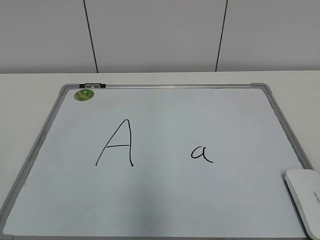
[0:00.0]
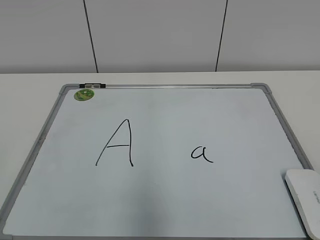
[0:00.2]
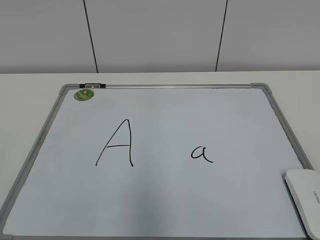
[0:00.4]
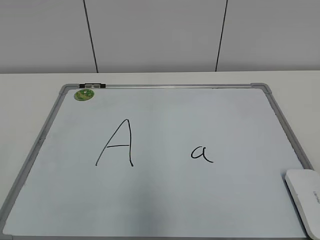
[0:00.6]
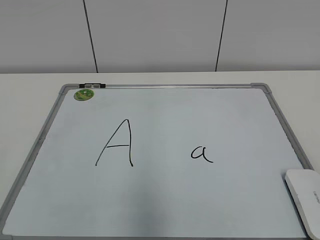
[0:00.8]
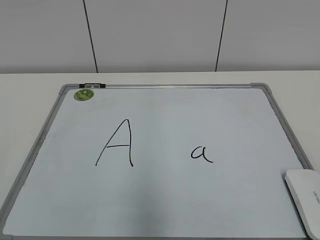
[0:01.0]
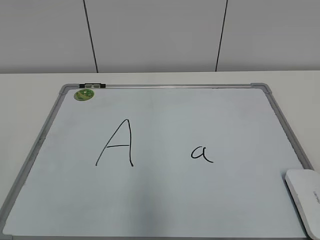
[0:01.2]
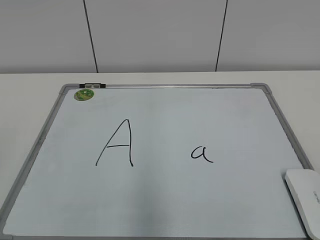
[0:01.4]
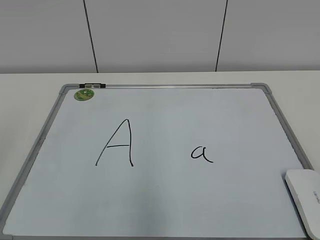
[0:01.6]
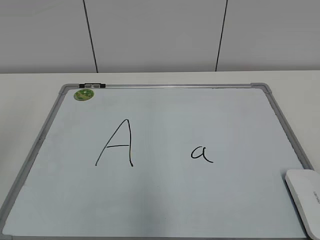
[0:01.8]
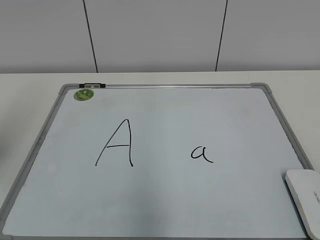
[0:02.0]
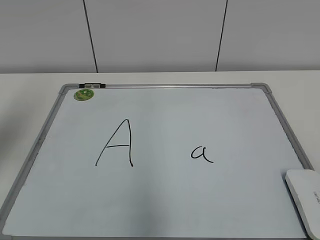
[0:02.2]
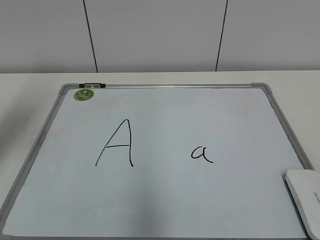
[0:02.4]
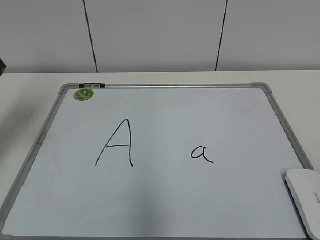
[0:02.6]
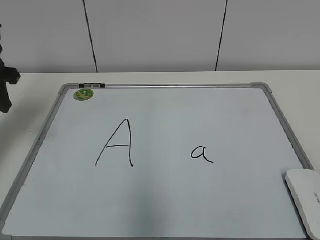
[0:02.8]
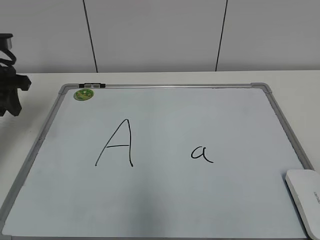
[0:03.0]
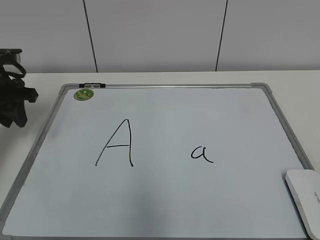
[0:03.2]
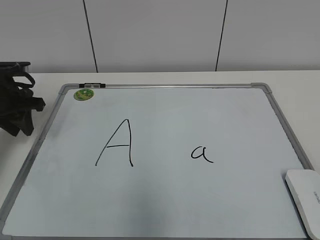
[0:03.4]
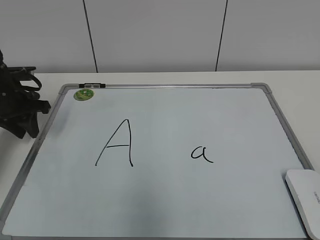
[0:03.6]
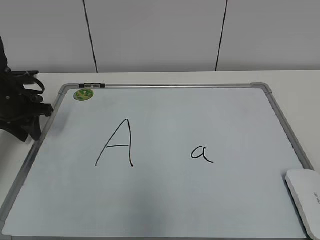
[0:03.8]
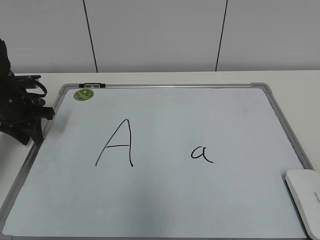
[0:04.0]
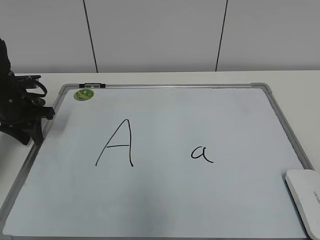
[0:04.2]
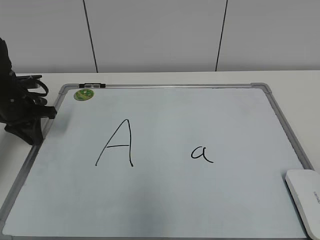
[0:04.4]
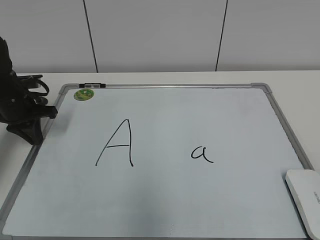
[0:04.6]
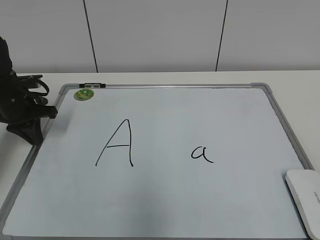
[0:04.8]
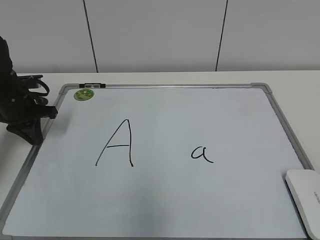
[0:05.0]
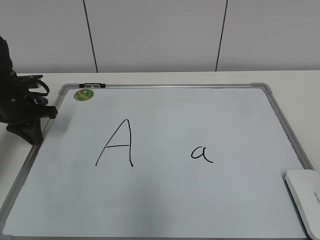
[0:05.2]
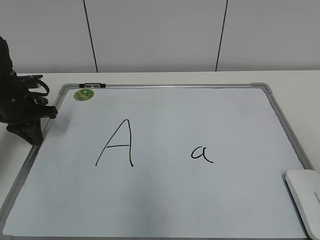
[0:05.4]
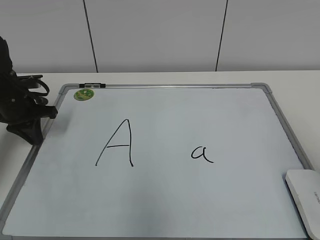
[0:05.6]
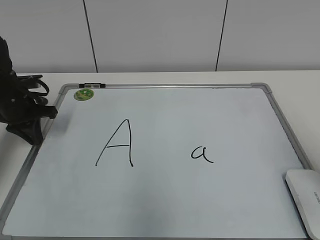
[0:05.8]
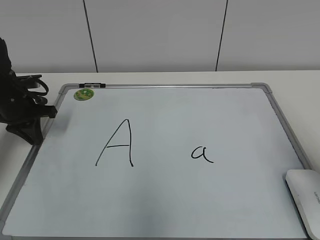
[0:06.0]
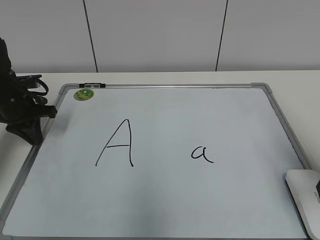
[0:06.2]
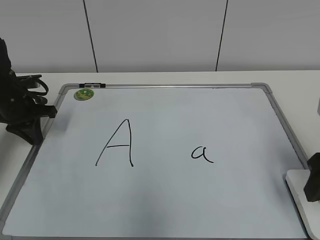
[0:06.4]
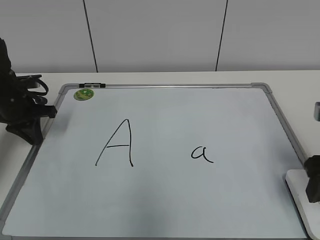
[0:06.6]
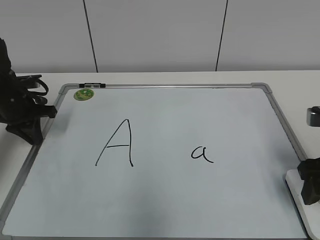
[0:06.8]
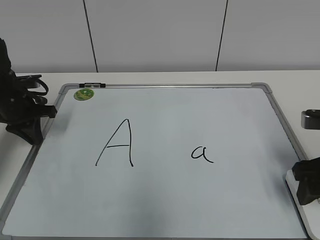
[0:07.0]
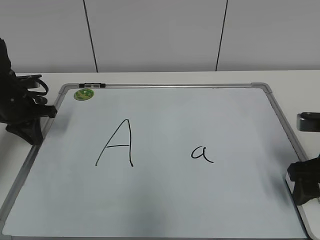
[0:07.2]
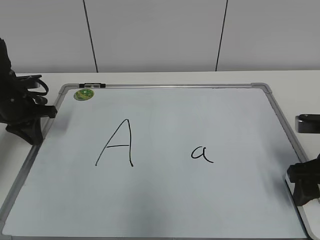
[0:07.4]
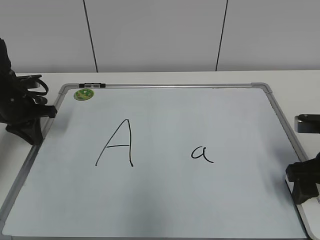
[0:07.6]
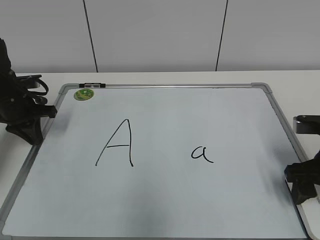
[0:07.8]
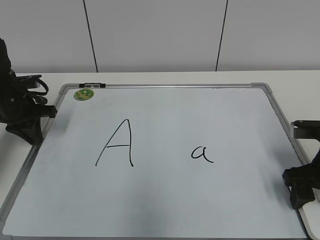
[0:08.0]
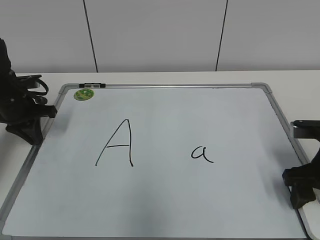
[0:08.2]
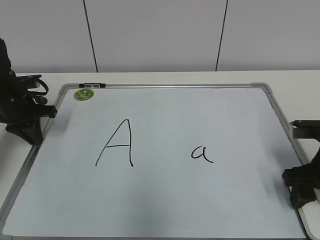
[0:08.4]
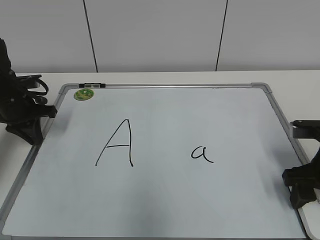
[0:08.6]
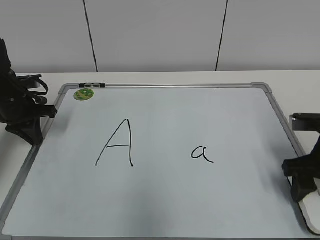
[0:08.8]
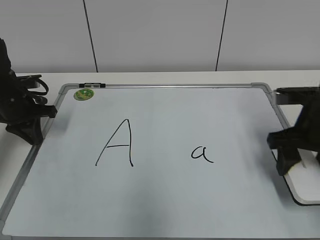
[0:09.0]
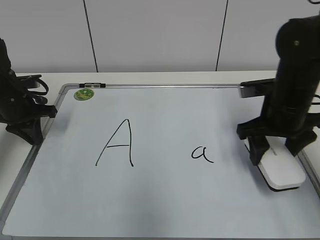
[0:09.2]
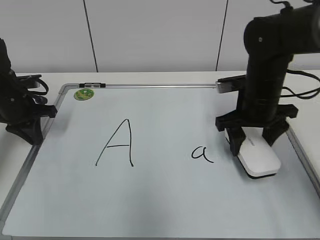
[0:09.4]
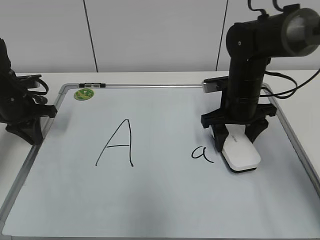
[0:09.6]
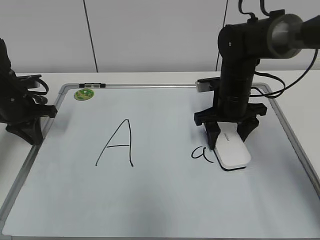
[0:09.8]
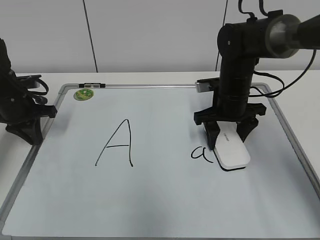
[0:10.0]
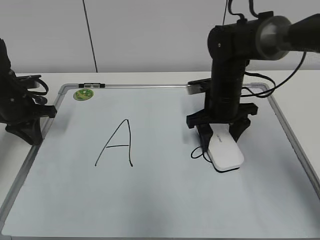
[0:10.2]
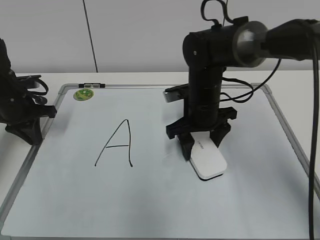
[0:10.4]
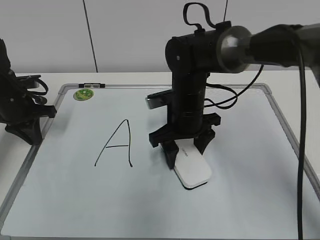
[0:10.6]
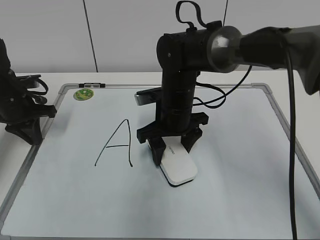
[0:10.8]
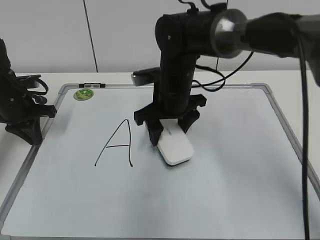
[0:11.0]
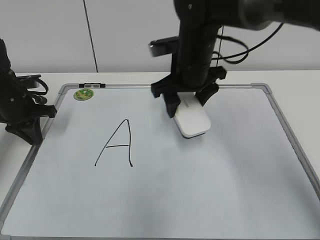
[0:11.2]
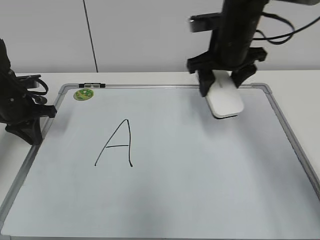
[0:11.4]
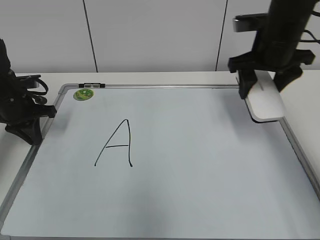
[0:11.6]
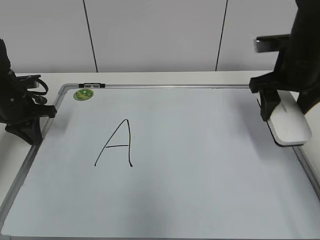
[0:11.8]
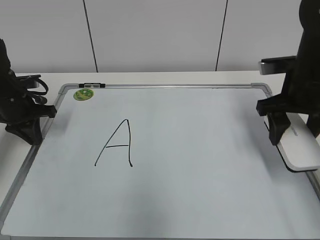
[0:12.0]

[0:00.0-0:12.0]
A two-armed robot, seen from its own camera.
Task of the whole recording: pick up the eraser on the blackboard and erase the letter "a".
Step, 0.0 to 5.2 s: Hold the drawing board steady with your left hand.
Step, 8.0 to 11.0 s: Erase the letter a with your right hand.
1.6 to 3.0 s: The left gripper shifts about 30 cm forward.
3.0 to 4.4 s: The left gripper moves downward, about 10 cm.
4.4 to 6.0 s: The right gripper goes roughly 20 cm forward.
6.0 to 7.6 s: The right gripper shifts about 10 cm downward and forward.
7.6 to 9.0 s: The right gripper moves about 5 cm.
9.0 to 10.4 s: The right gripper travels to the left and forward by some 20 cm.
10.4 to 12.0 s: The right gripper is displaced to the right and upward by approximately 15 cm.

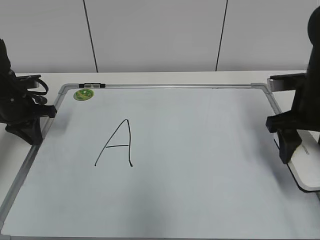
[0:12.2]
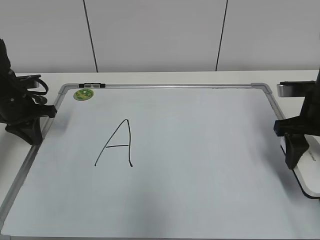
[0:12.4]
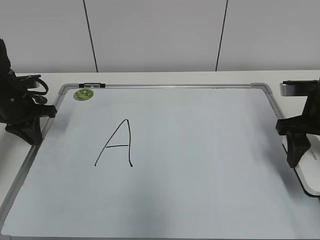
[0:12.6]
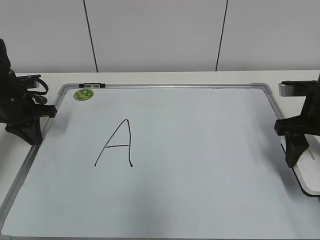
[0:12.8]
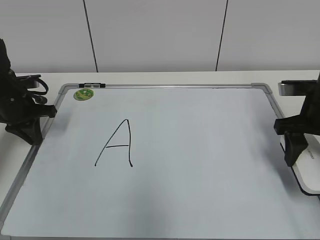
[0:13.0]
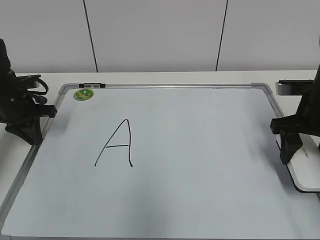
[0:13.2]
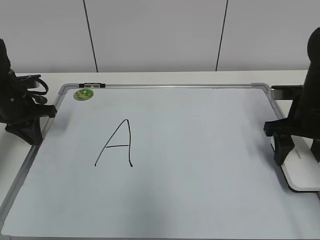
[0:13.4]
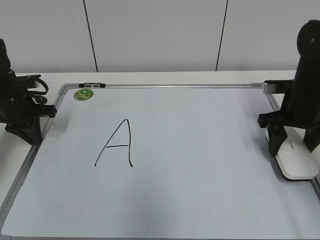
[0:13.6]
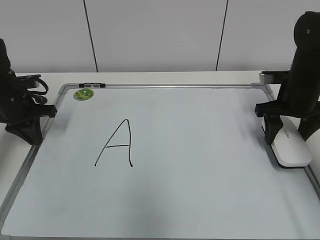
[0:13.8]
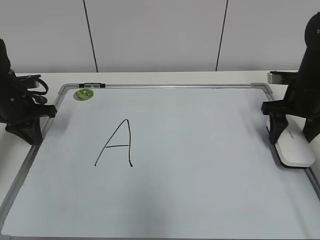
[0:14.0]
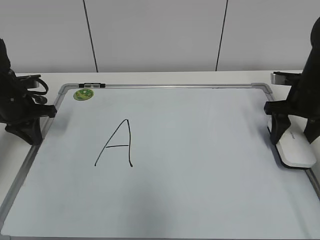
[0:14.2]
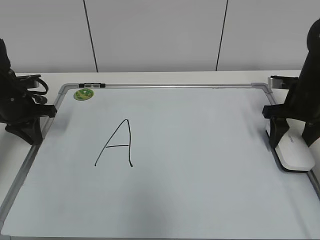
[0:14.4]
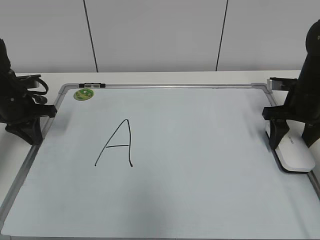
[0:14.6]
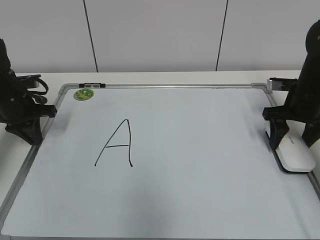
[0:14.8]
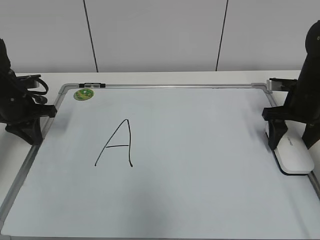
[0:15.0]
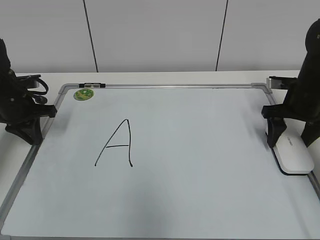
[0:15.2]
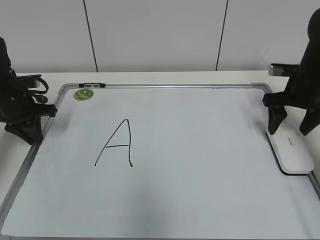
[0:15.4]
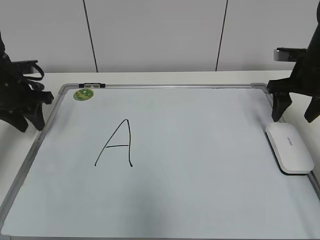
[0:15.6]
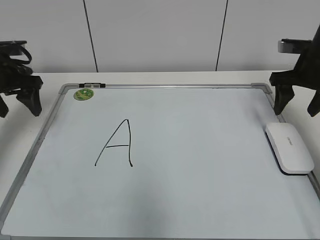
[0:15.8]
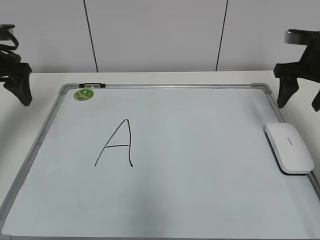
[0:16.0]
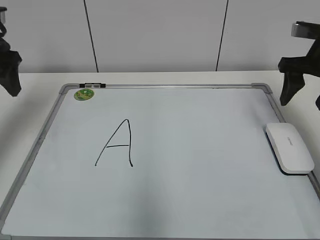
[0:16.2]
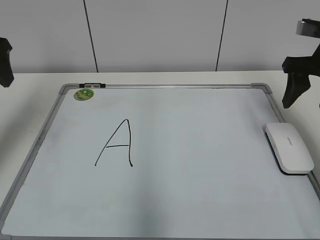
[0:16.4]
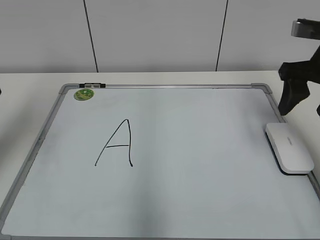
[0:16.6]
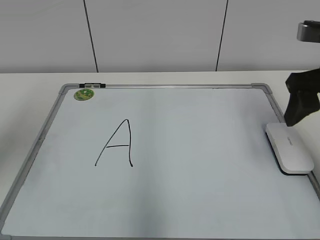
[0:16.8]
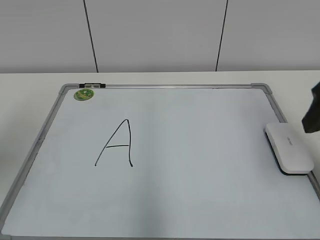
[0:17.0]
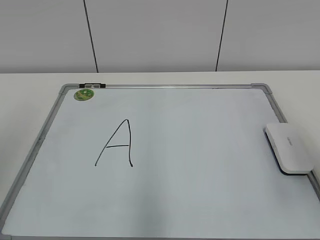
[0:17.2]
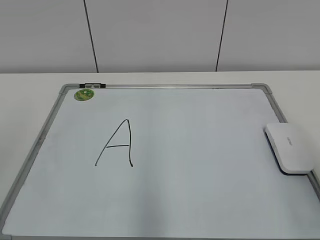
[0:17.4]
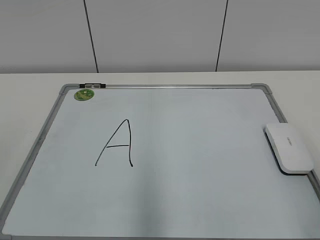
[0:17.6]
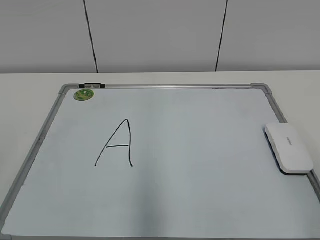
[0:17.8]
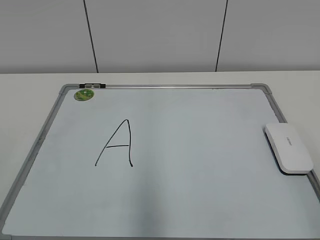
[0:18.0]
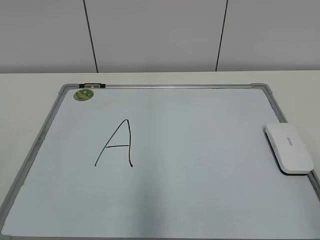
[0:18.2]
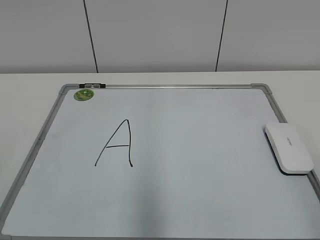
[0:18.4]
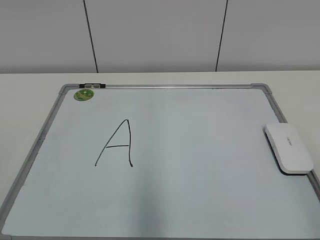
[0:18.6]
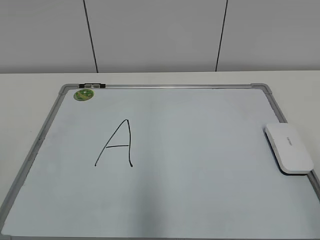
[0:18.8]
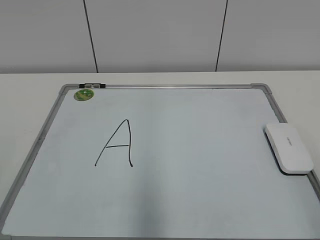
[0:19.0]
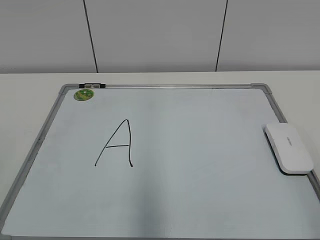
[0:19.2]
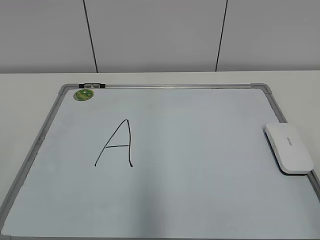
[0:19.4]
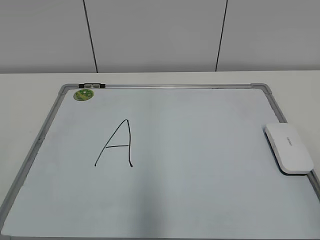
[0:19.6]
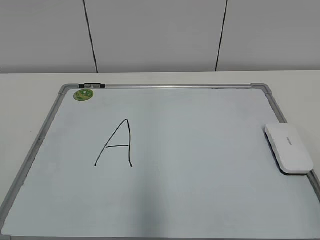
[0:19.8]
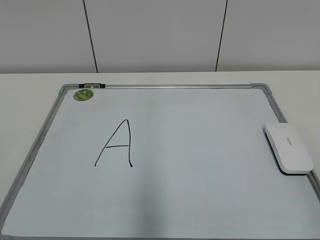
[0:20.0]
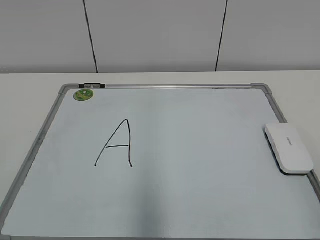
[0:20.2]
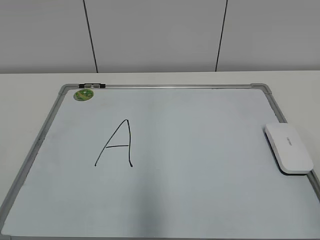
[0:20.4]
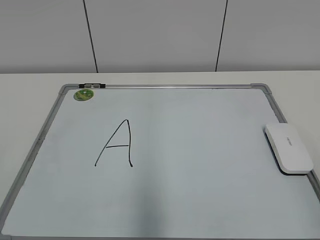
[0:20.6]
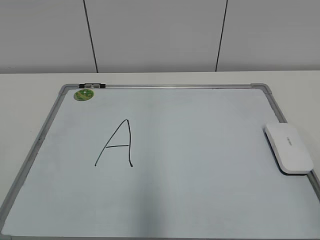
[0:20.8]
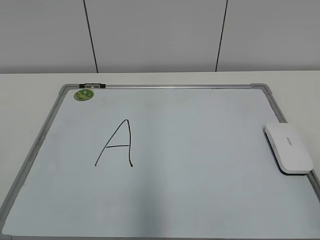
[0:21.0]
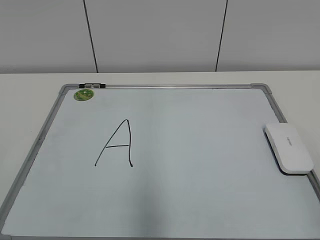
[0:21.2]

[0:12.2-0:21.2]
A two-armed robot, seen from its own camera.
Task of the whole recording: pick up the eraser on the blackboard and erase the letter "a".
Step, 12.2 to 15.0 s: Put down the eraser with your right hand.
12.2 to 13.8 s: The right gripper shifts some 5 cm forward.
13.8 to 15.2 s: There are only small adjustments of the grippers.
15.2 to 16.6 s: The left gripper is displaced upward and backward by approximately 25 cm, and opens up. The right gripper is displaced upward and backward by approximately 15 cm.
16.6 to 18.2 s: Both grippers travel together backward, some 30 cm.
19.8 to 21.2 s: The two grippers keep their place.

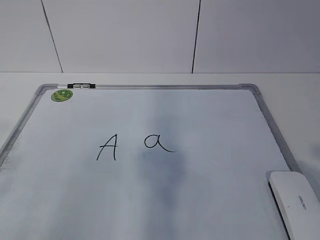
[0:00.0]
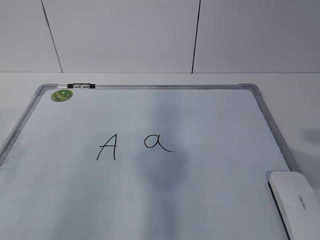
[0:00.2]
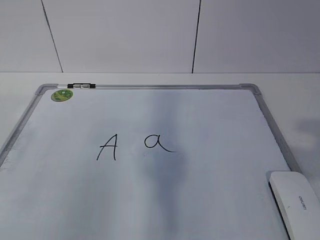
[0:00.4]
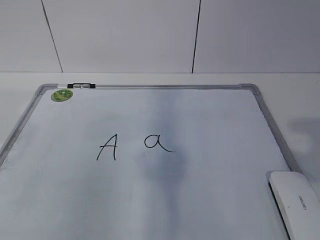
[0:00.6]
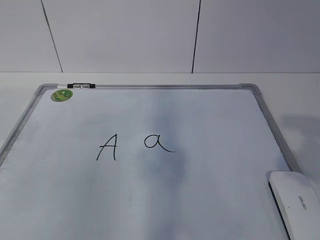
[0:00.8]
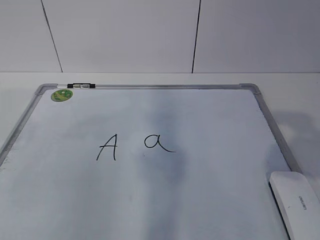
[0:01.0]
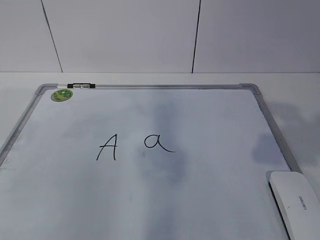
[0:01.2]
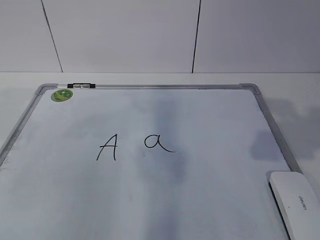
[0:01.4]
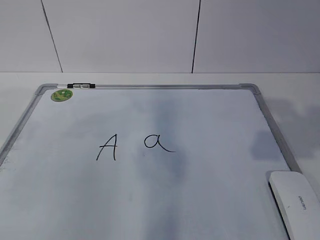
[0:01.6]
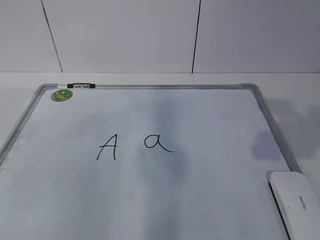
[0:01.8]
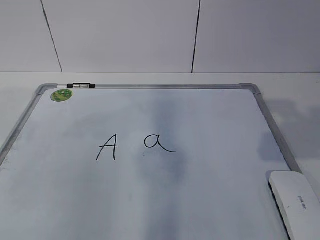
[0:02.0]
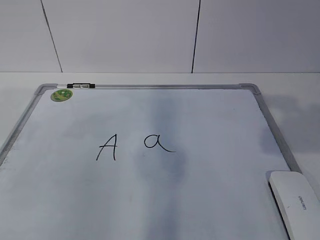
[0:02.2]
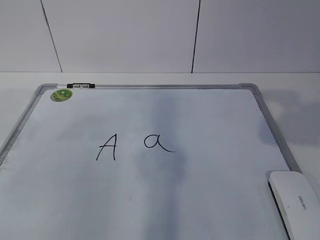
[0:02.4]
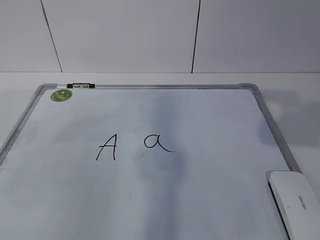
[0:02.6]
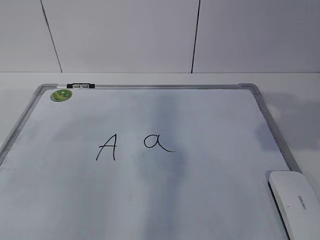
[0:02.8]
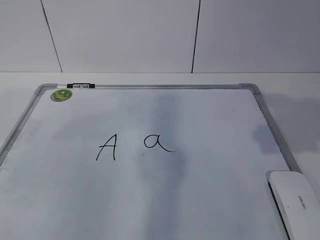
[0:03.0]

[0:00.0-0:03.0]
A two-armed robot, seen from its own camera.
Task of the whole recording: pick up the eraser on the blackboard and erase the letter "a".
0.0 to 1.6 s: The right gripper goes roughly 15 cm forward.
